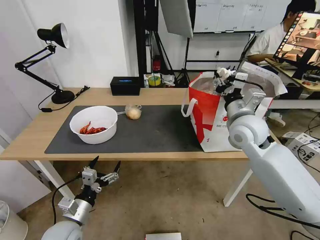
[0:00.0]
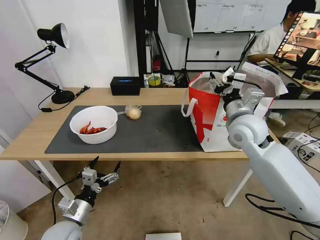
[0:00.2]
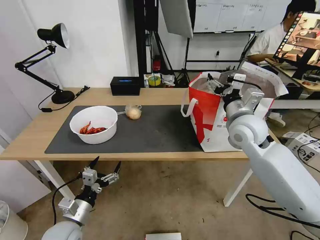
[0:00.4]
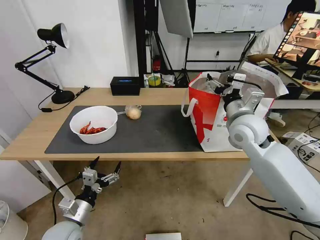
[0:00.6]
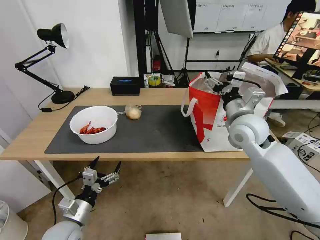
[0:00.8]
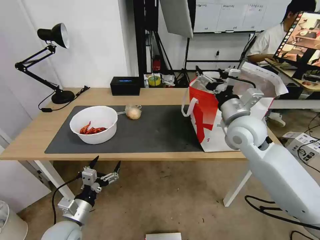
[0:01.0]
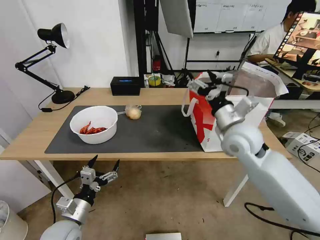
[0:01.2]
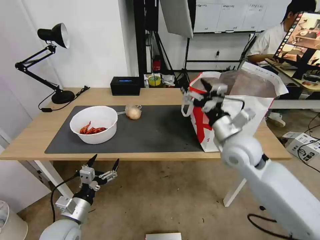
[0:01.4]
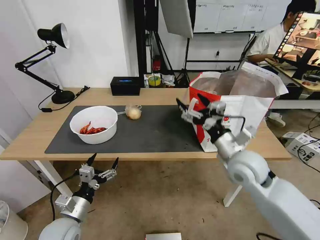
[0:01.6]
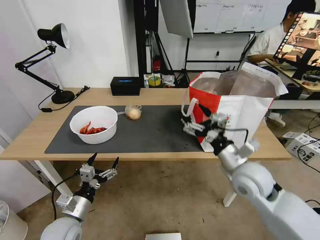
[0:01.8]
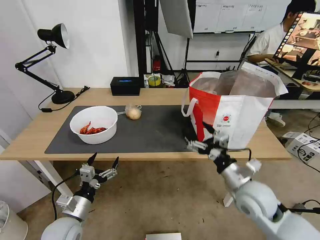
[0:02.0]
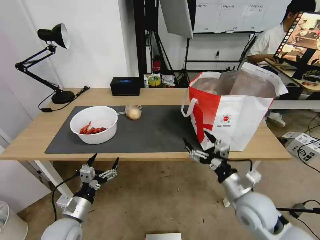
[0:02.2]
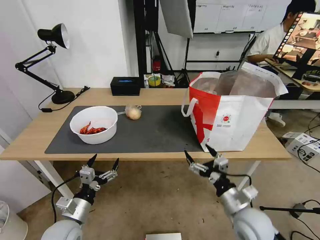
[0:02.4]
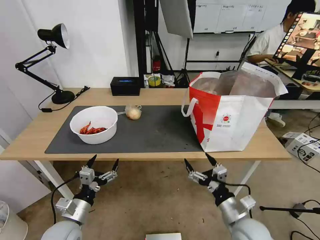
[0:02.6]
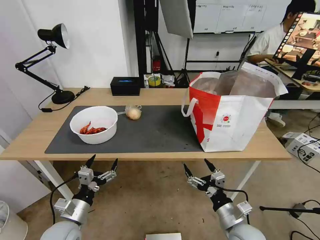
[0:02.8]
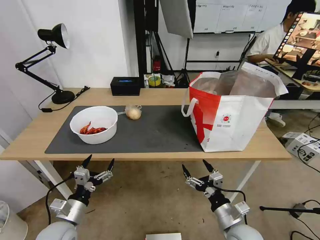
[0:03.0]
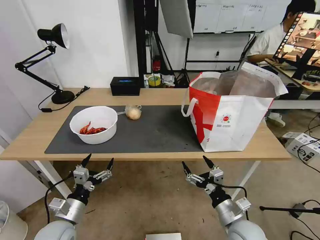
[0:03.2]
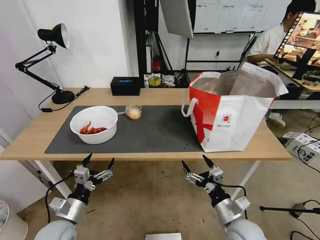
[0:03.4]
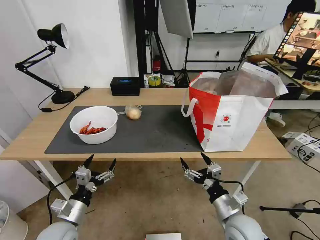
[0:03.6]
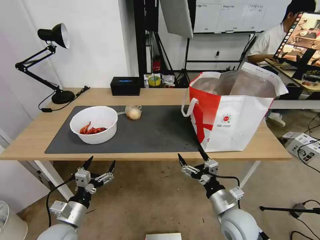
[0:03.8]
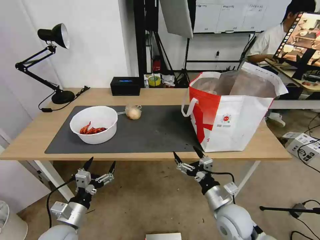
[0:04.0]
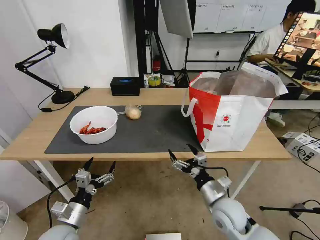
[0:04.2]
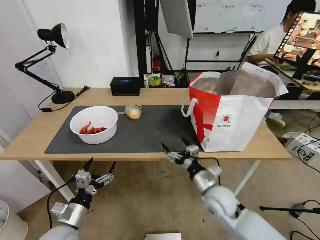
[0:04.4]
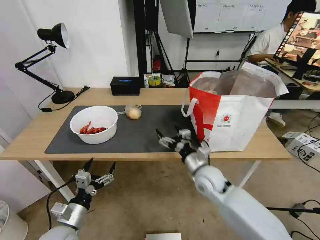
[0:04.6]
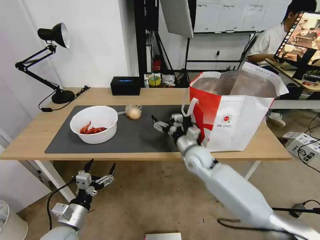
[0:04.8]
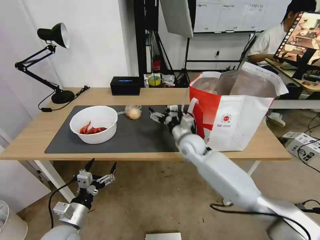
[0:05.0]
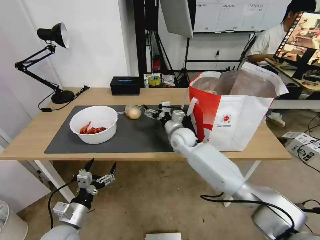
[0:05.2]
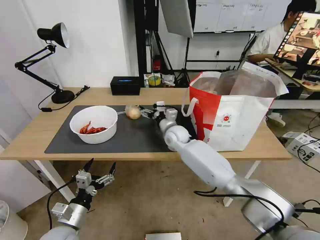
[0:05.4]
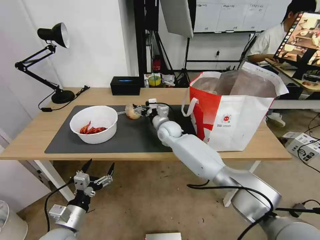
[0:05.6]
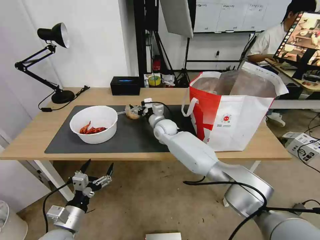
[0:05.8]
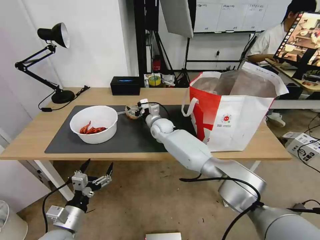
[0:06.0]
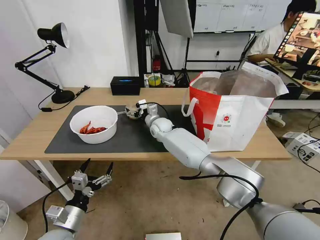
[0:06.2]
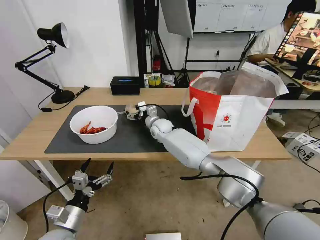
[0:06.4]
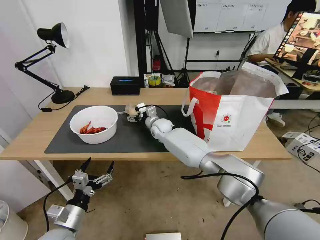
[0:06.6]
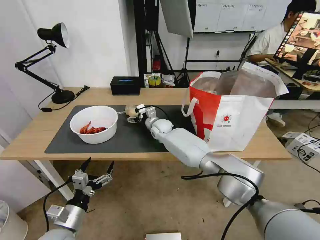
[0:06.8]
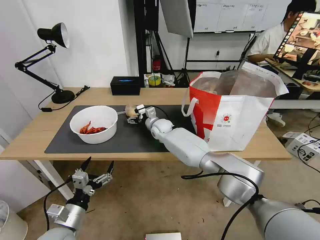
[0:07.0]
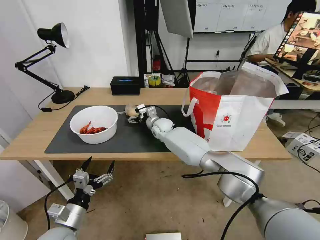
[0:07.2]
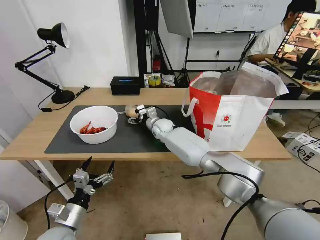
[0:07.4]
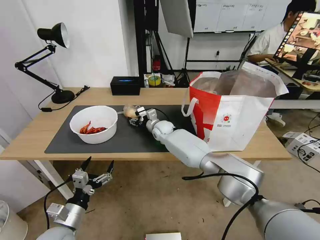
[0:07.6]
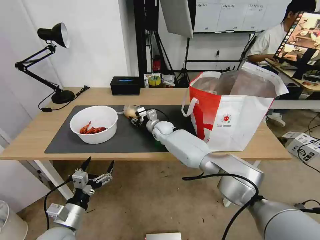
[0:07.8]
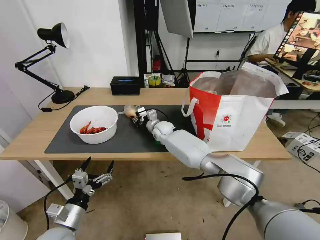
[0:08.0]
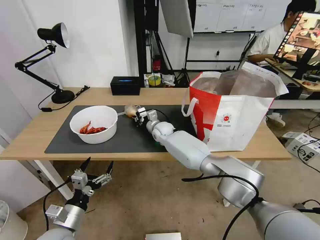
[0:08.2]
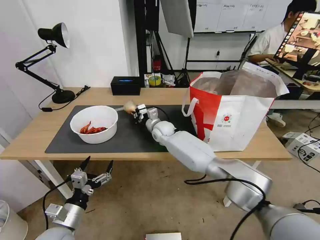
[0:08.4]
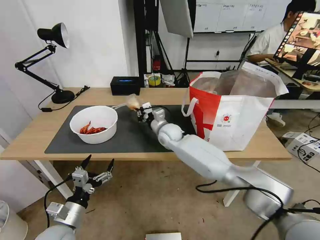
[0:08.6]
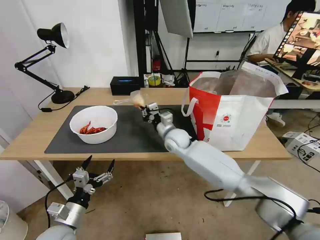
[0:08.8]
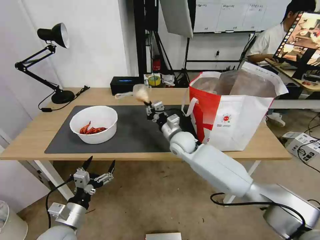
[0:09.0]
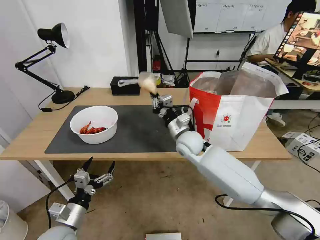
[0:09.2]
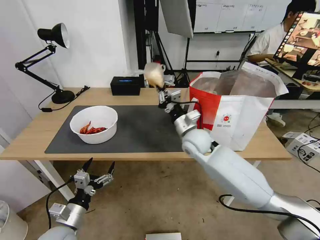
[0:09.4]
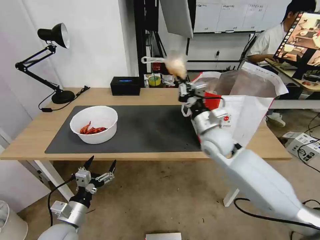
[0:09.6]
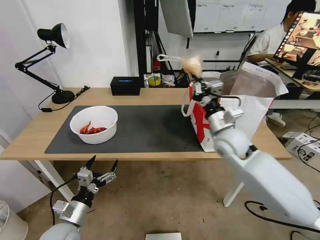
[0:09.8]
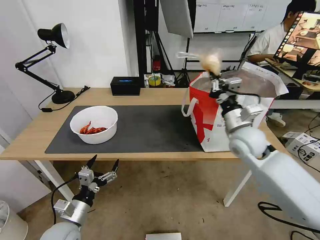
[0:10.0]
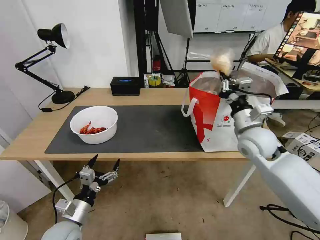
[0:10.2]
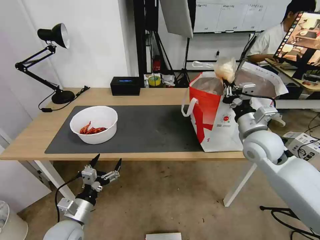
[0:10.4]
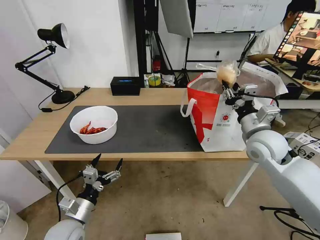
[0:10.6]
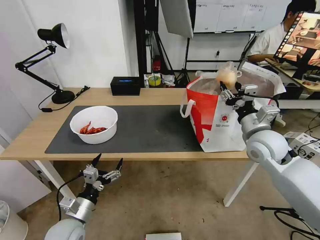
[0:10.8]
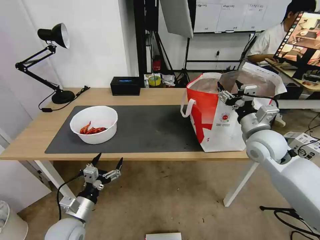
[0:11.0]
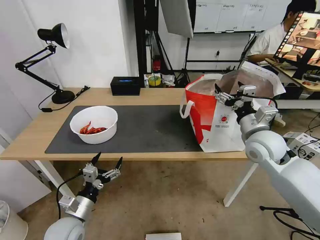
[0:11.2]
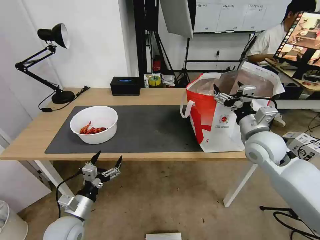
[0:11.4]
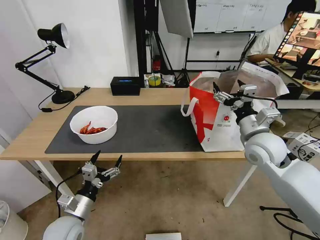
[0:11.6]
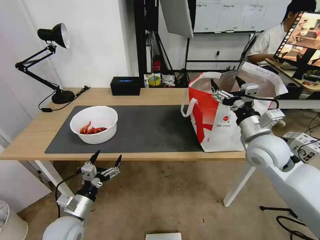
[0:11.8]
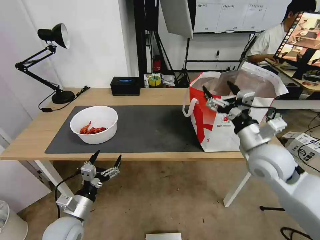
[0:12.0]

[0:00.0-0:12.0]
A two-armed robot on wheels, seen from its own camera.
Task of the whole recording: Pick up the trash from the table and place it into the takeout bag.
0:00.0 to 0:01.6: The right gripper moves backward and downward, some 10 cm, and opens up.
0:01.6 to 0:03.0: The right gripper moves downward and backward, about 20 cm.
0:03.0 to 0:04.4: The right gripper moves forward and to the left, approximately 10 cm.
0:04.4 to 0:06.0: The right gripper goes some 35 cm forward and to the left.
0:06.0 to 0:07.6: The grippers stay close to where they were, moving slightly.
0:07.6 to 0:09.0: The right gripper shifts approximately 15 cm backward and to the right, and closes.
0:09.0 to 0:10.4: The right gripper shifts some 25 cm to the right, upward and backward.
0:10.4 to 0:12.0: The right gripper opens.

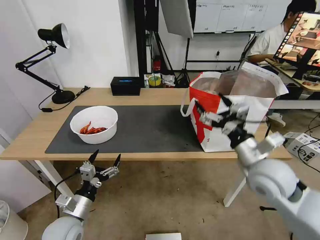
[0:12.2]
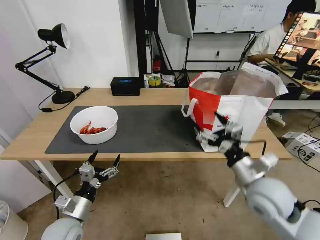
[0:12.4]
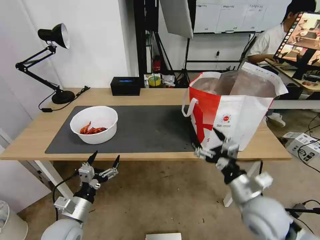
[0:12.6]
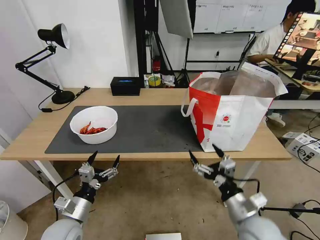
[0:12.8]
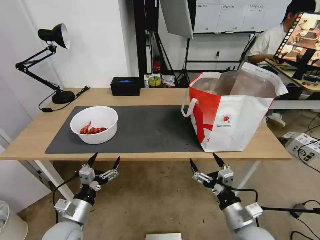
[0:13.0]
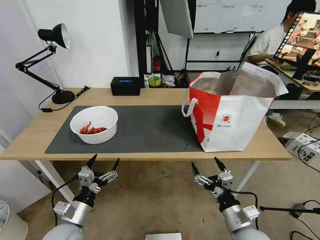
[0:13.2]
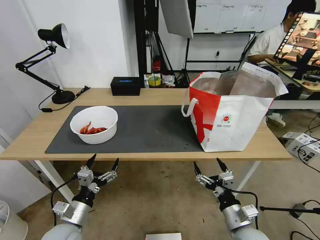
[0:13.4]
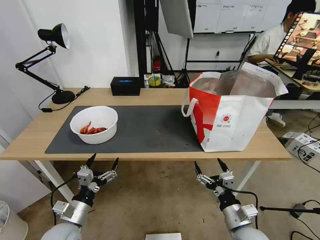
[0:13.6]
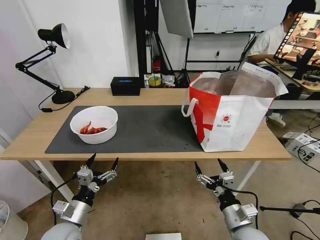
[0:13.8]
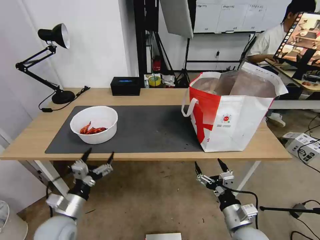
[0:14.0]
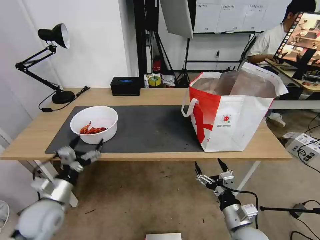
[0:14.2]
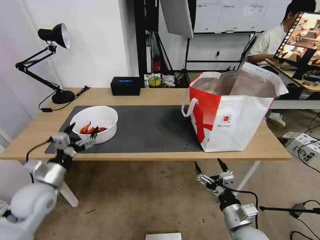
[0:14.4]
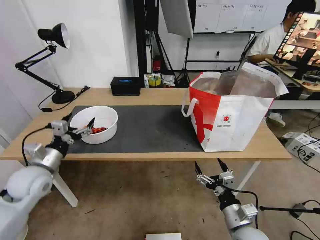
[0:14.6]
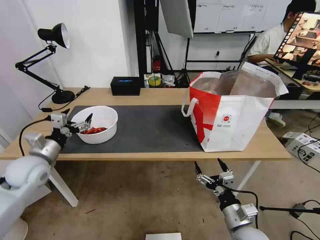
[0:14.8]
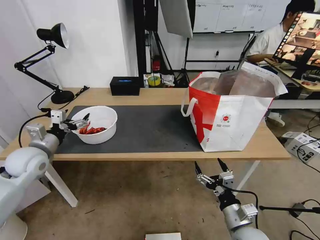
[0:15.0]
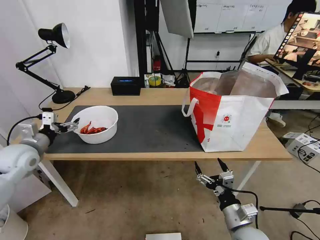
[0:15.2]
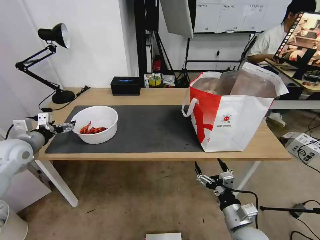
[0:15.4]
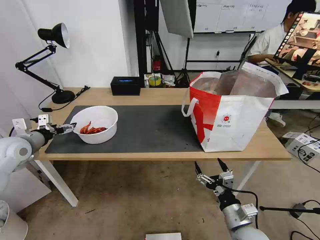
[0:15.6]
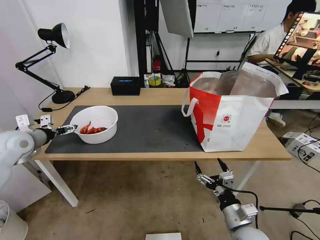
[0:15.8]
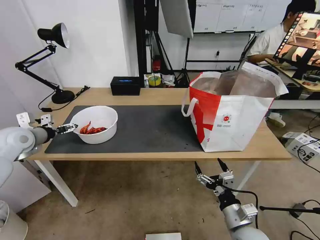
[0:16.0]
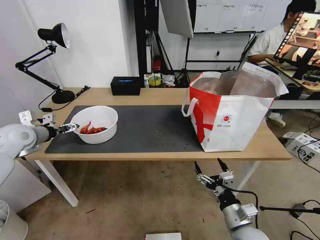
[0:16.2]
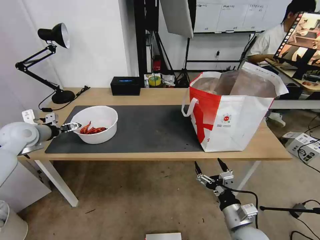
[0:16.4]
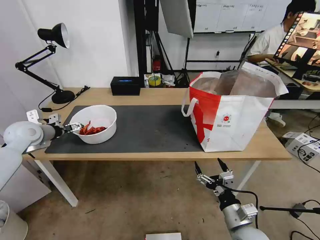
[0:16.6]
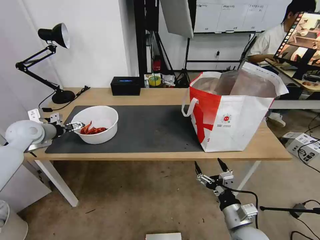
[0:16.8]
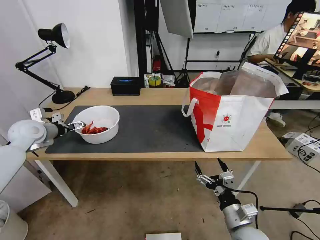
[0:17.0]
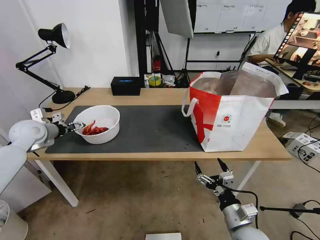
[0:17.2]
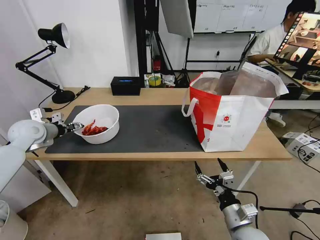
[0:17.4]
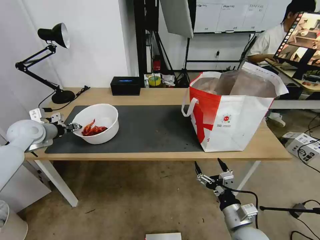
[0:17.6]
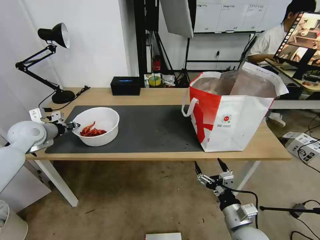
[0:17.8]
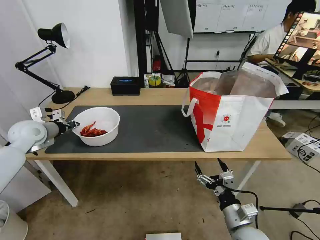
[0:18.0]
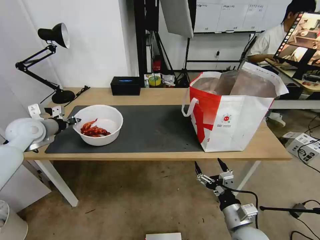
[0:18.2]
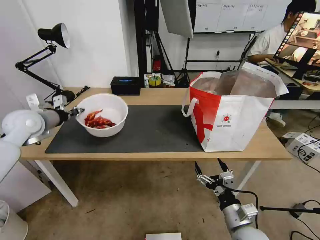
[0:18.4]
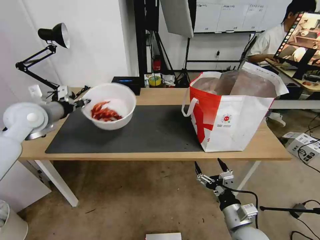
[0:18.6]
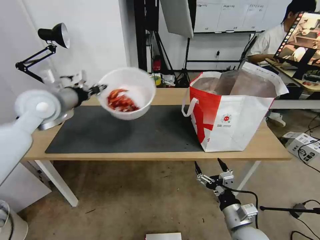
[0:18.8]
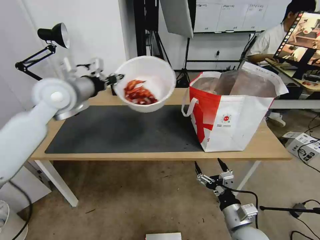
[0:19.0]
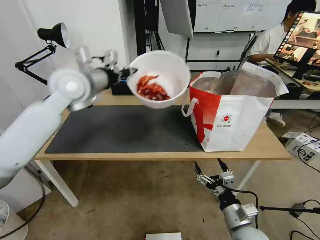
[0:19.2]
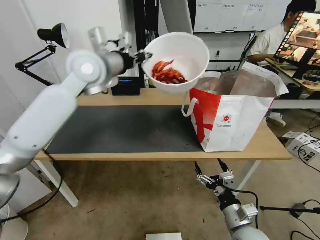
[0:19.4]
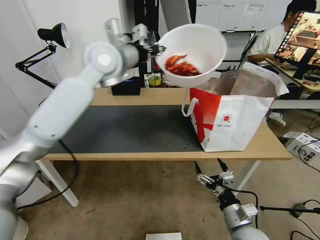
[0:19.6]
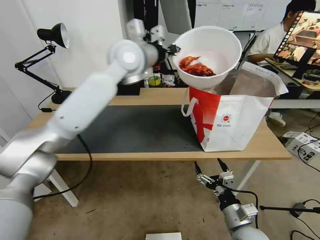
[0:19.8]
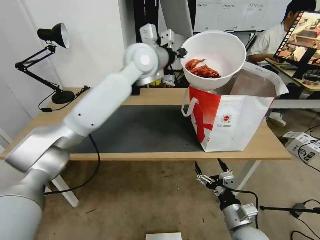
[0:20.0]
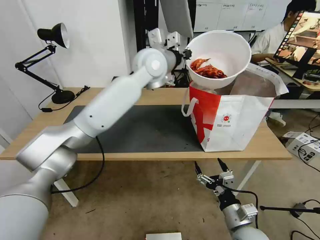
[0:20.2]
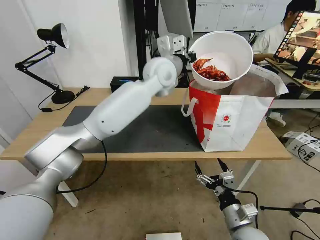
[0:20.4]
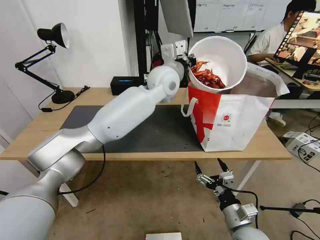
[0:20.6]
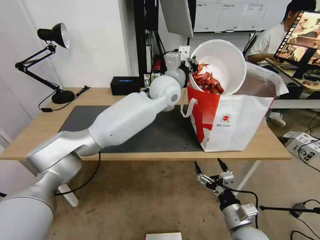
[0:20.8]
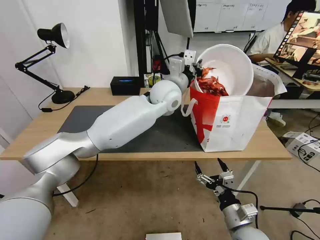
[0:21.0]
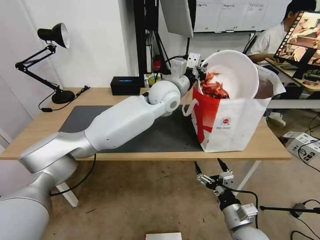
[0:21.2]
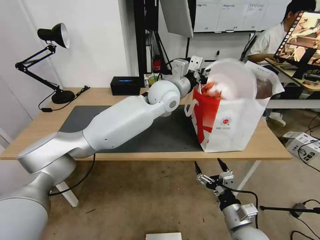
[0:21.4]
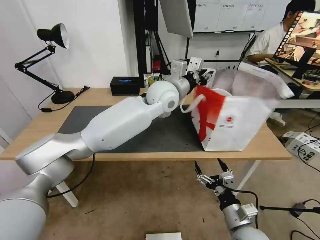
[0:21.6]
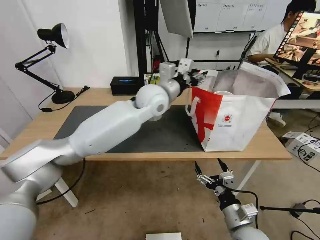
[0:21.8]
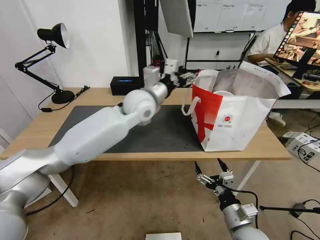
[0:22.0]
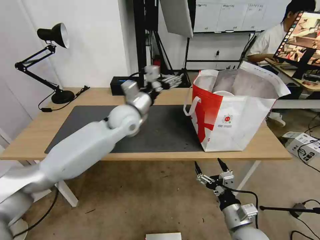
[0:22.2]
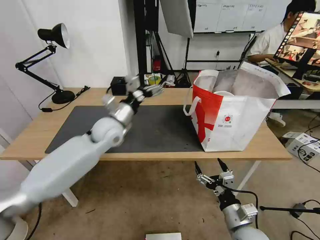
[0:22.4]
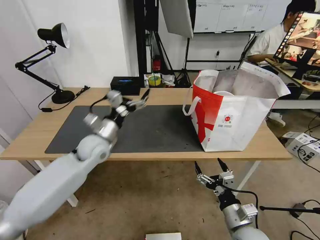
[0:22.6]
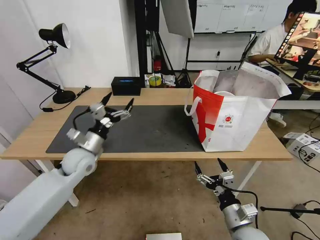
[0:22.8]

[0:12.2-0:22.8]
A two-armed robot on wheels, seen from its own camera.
Task of the whole recording: Pick up the trash from the table and place it into the takeout bag.
0:12.2 to 0:13.8: The right gripper shifts some 20 cm downward and backward.
0:13.8 to 0:15.2: The left gripper moves forward, to the left and upward, approximately 30 cm.
0:15.2 to 0:16.8: The left gripper is displaced forward by about 10 cm.
0:16.8 to 0:18.2: The left gripper closes.
0:18.2 to 0:19.8: The left gripper travels to the right and upward by some 40 cm.
0:19.8 to 0:21.2: The left gripper shifts about 15 cm downward and to the right.
0:21.2 to 0:22.8: The left gripper travels to the left, downward and backward by some 35 cm, and opens up.
